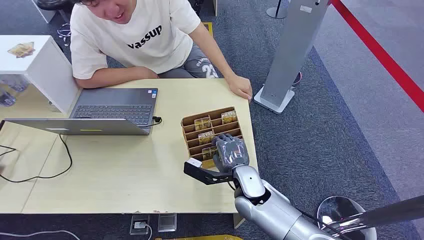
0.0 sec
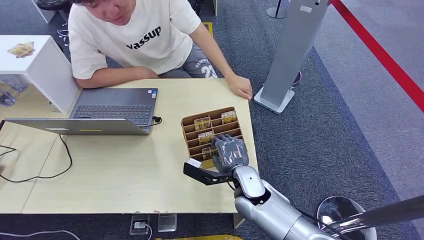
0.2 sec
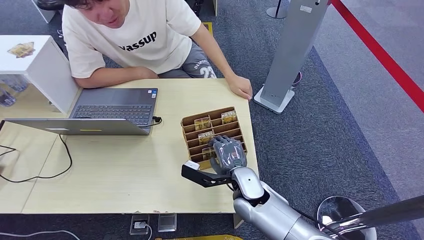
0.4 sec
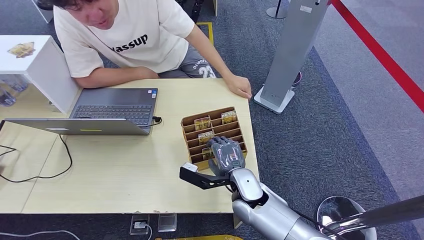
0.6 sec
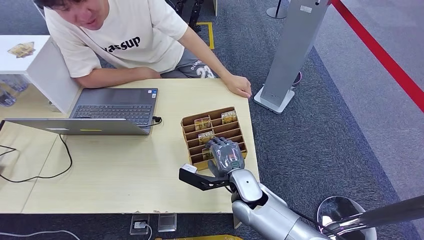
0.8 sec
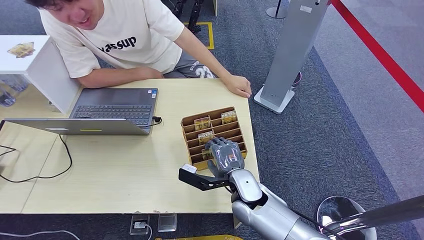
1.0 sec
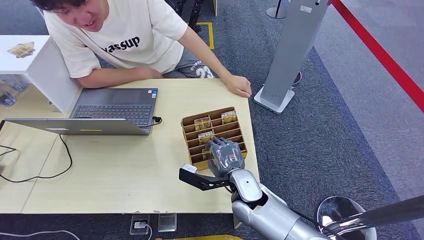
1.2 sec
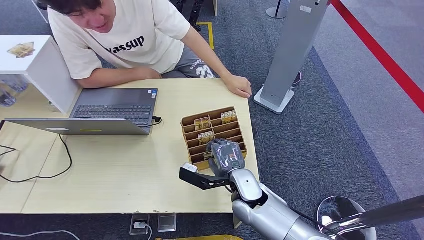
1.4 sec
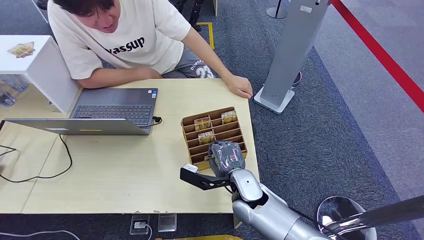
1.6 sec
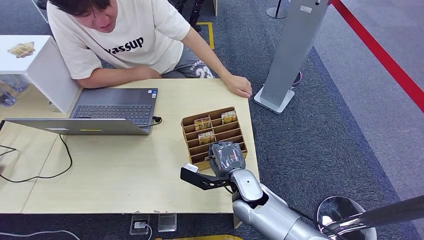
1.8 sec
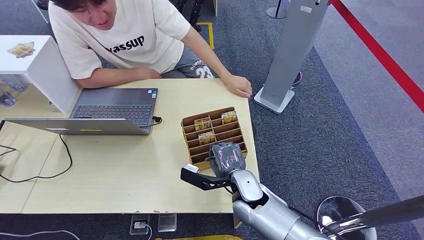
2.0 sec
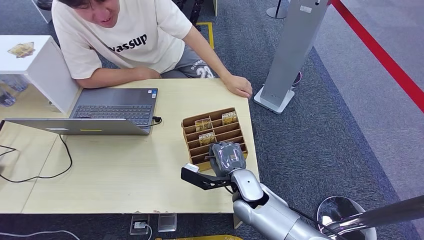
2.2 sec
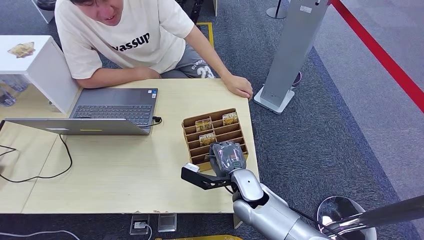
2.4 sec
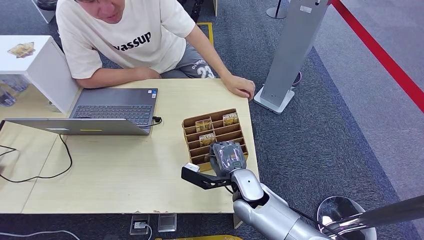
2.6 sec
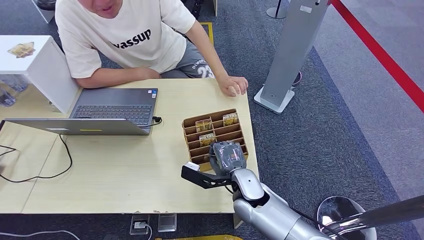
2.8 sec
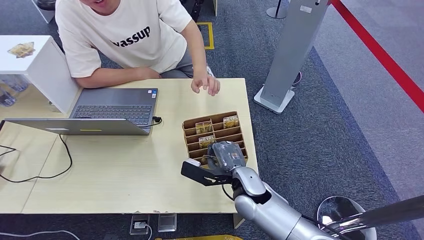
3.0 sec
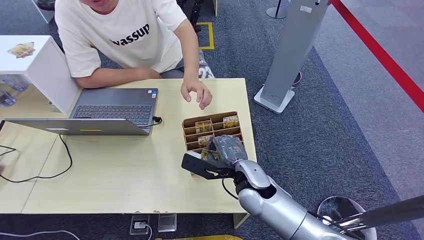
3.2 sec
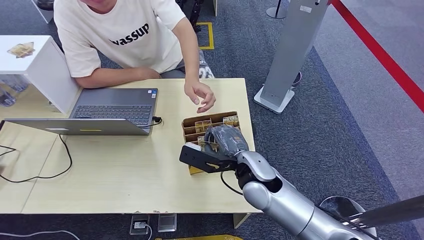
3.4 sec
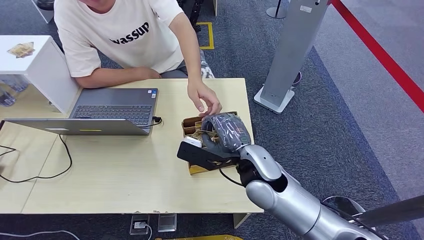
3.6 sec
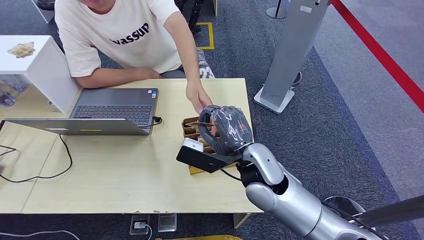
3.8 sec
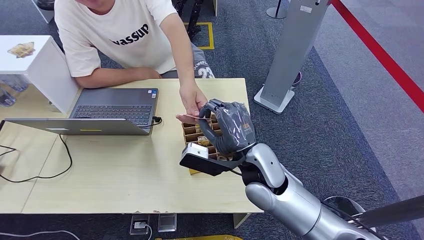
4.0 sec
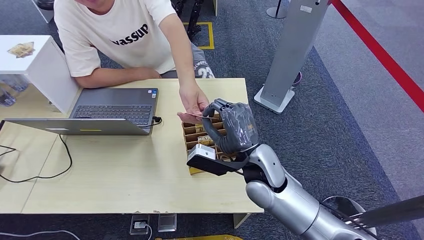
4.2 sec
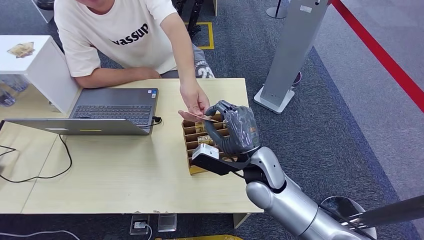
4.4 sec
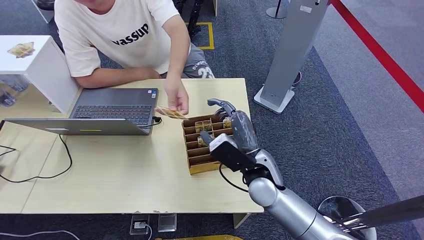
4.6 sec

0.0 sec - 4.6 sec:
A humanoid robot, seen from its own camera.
Step, 0.0 sec - 3.0 sec: Pick up the key card from the card box.
Step, 3.4 sec - 4.6 sec: Hand the key card to the target.
1.6 sec - 3.0 sec: There are only small adjustments of the hands.
3.0 sec - 4.6 sec: The right hand shifts approximately 5 cm upward.
